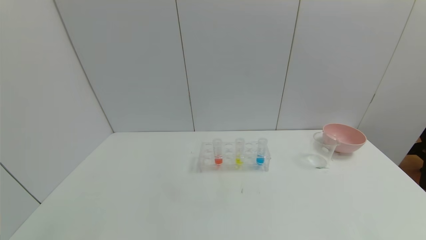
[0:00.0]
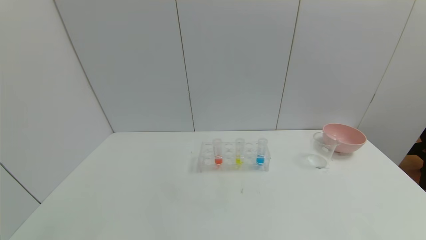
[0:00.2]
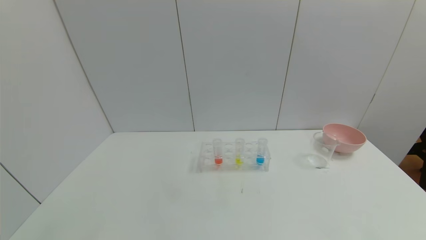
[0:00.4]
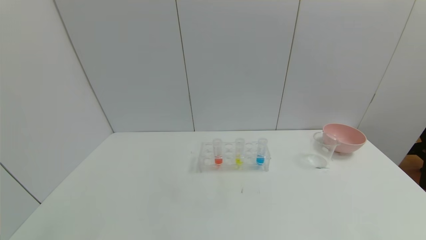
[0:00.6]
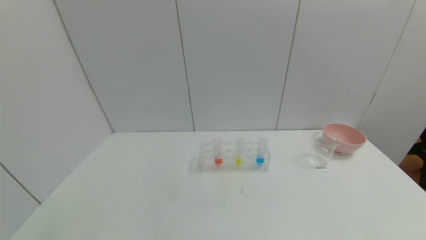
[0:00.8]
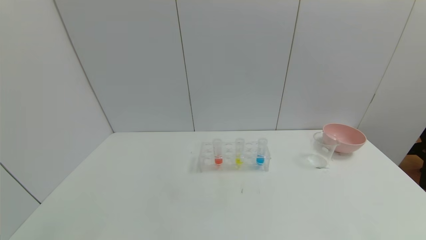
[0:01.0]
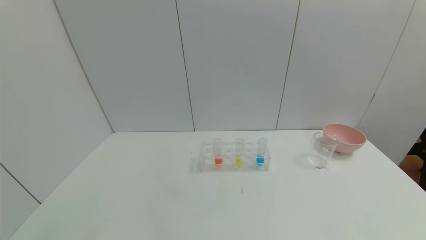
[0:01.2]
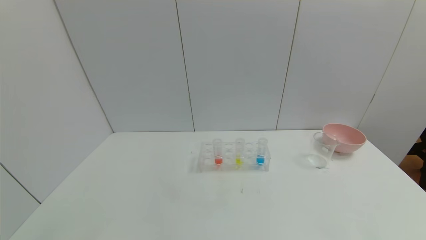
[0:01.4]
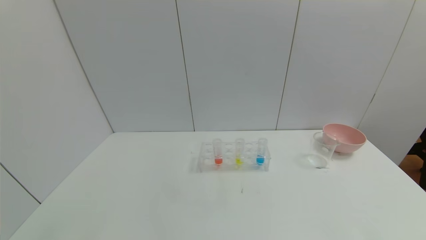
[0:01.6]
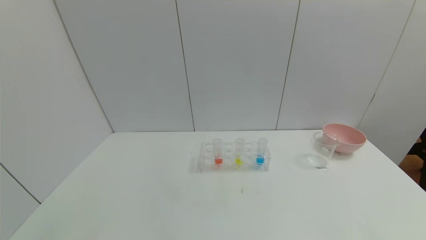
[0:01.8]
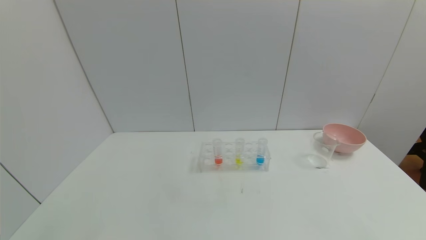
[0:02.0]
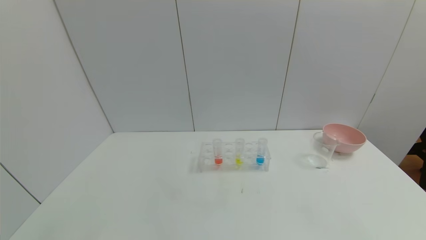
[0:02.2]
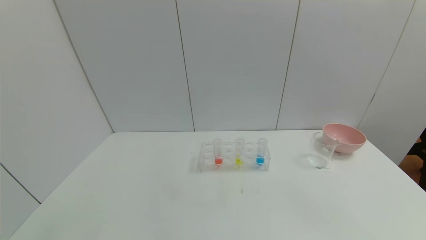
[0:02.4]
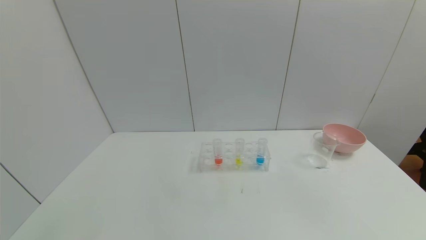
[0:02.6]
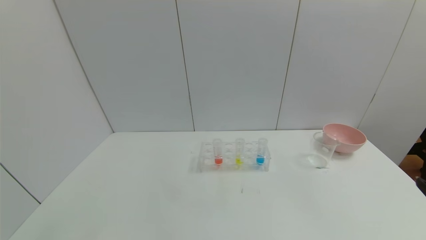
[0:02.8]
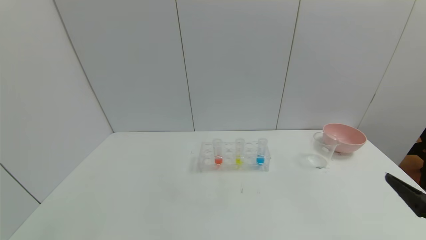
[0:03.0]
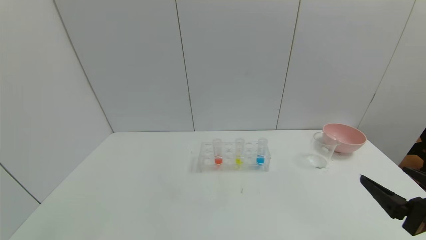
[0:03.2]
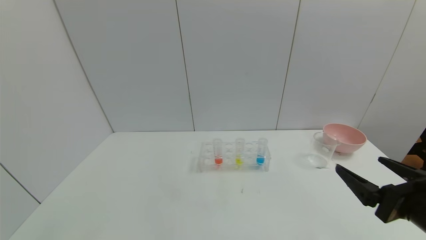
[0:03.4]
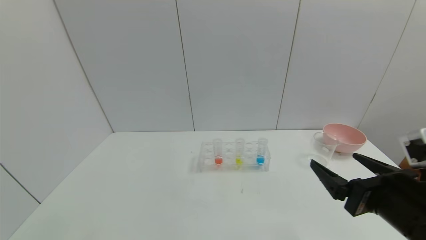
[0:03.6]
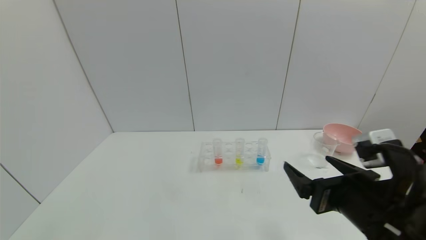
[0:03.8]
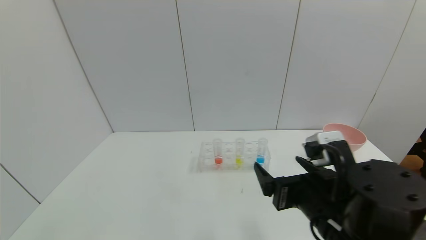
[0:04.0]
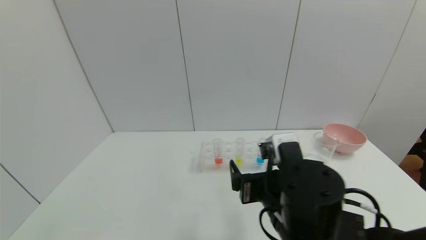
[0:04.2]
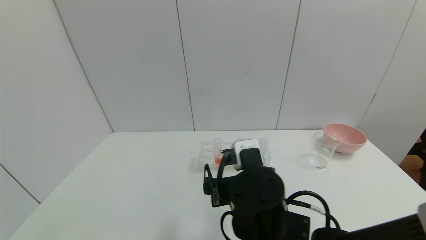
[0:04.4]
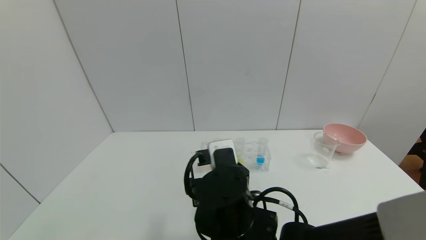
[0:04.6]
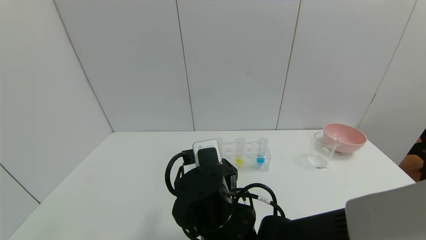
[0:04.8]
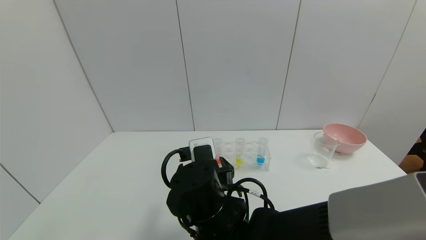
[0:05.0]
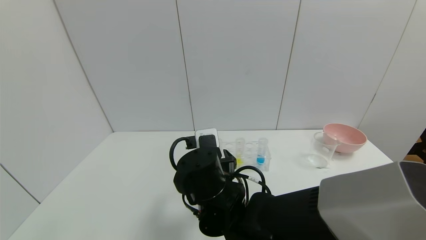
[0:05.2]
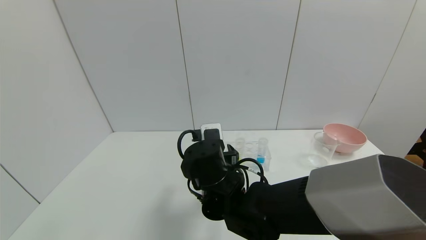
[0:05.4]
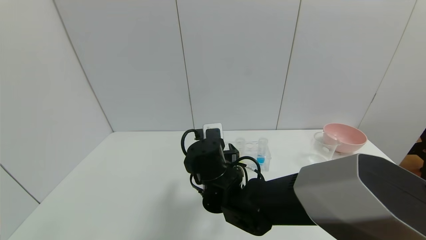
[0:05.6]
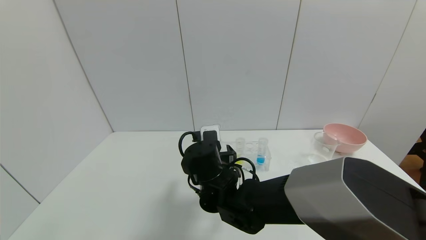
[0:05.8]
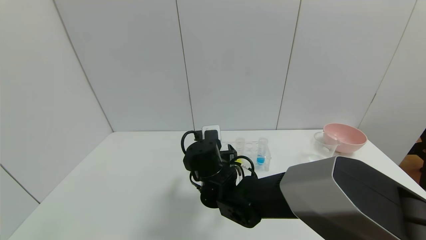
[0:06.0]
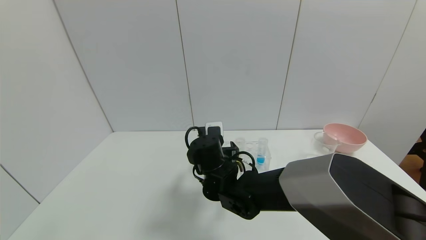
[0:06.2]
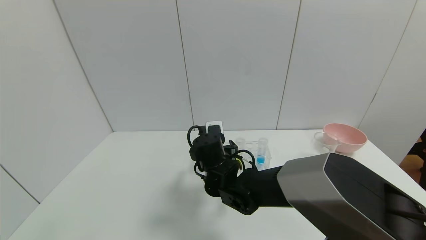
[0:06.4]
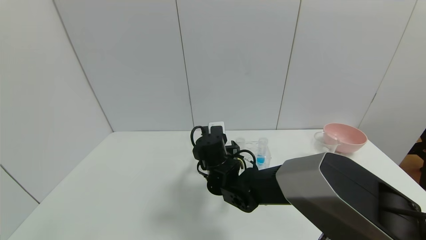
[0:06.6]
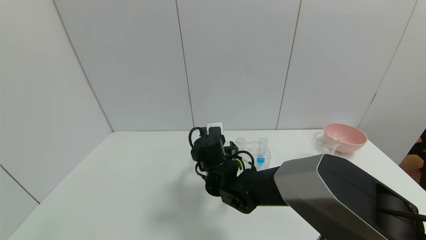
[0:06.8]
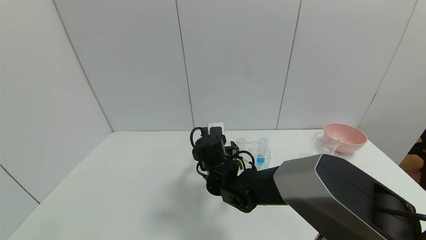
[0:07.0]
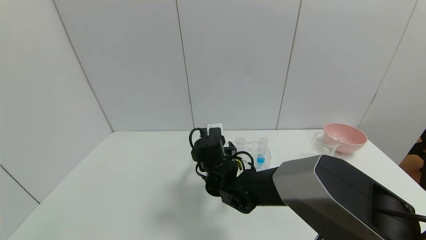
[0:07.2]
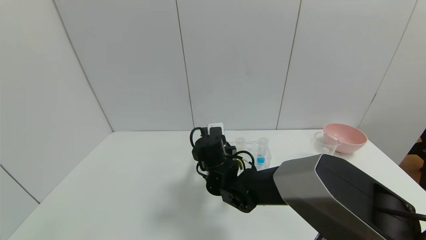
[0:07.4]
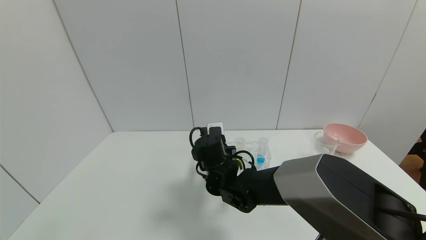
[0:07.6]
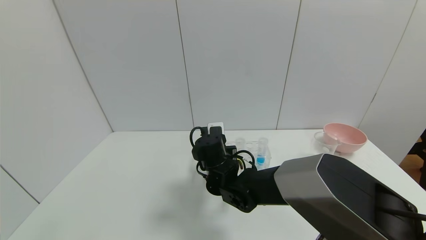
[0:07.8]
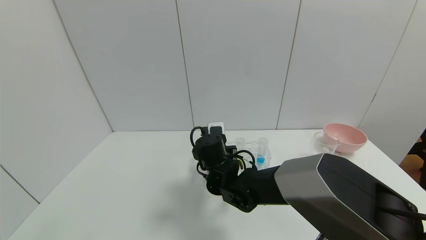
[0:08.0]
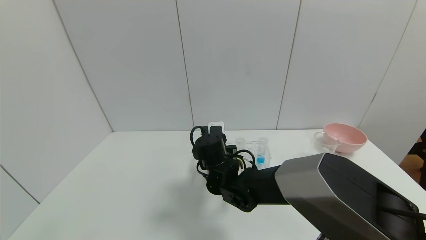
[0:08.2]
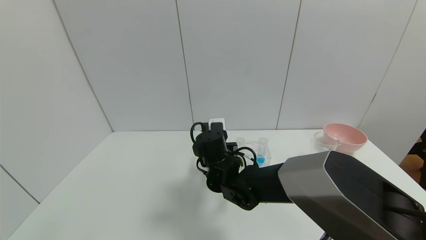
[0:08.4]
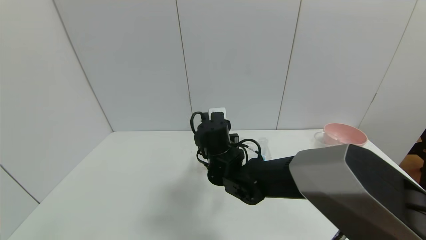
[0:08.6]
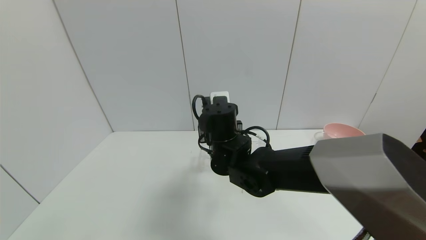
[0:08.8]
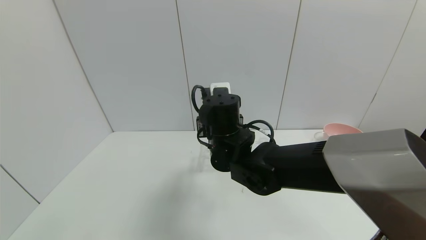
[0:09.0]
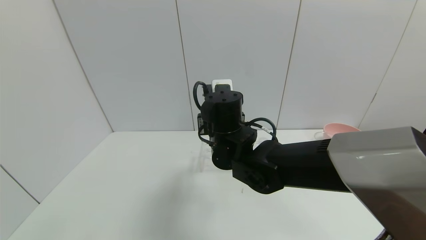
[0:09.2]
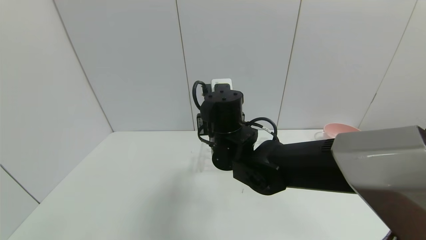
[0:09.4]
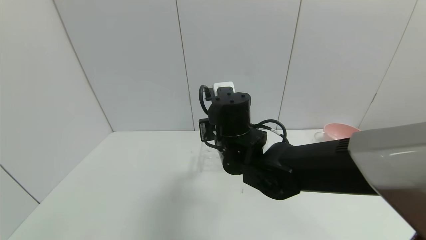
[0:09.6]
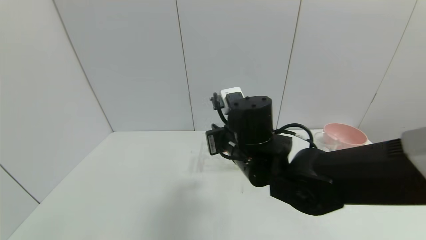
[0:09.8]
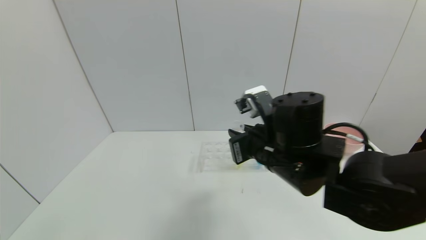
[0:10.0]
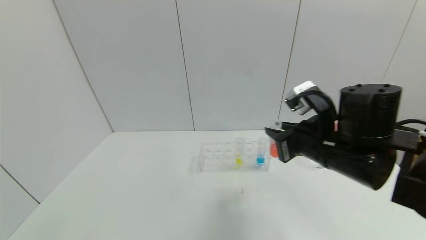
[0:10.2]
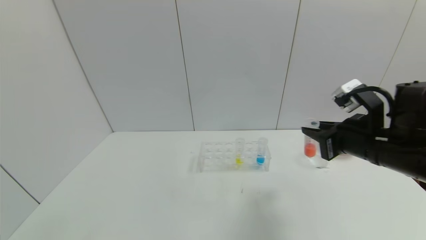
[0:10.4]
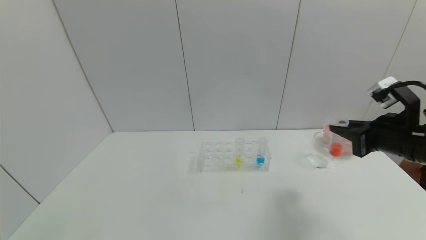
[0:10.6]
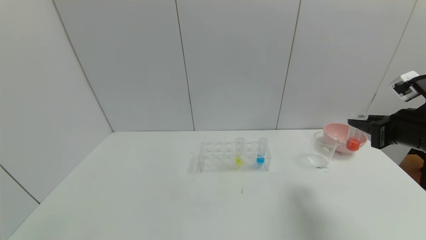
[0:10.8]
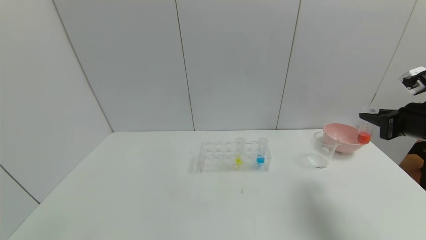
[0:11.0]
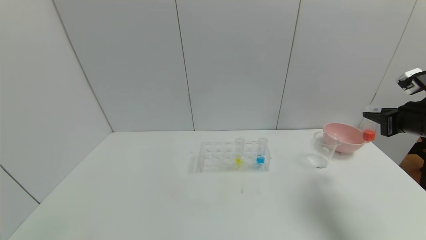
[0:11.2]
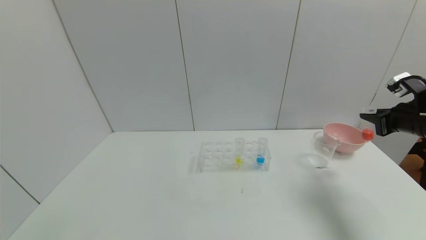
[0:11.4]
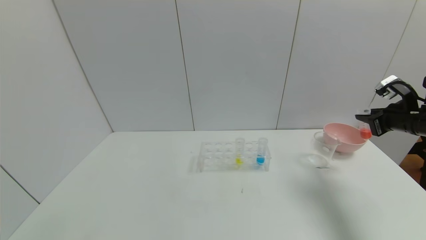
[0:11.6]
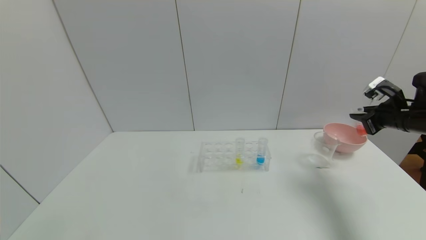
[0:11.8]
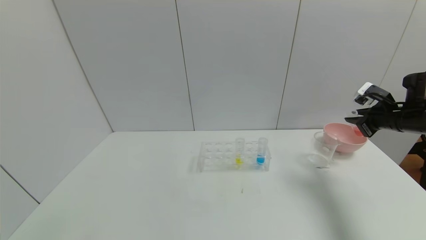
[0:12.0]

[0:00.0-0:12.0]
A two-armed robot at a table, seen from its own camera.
Task of the whole recording: pick up the test tube with red pigment and the test tube with blue pigment by grippers and pour them into the container.
Step, 0:00.0 to 0:07.8: Grasp the red reagent with the right gripper.
0:00.0 to 0:01.6: Both grippers stay about where they are.
0:01.6 to 0:03.0: The right gripper travels forward and upward by some 15 cm.
0:03.0 to 0:04.4: The right gripper travels to the left by about 30 cm.
0:04.4 to 0:06.0: The right gripper is displaced forward and to the left by about 15 cm.
0:06.0 to 0:07.6: The right gripper closes its fingers.
0:07.6 to 0:09.0: The right gripper travels upward by some 10 cm.
0:09.0 to 0:10.4: The right gripper moves to the right, approximately 25 cm.
0:10.4 to 0:12.0: The right gripper goes roughly 20 cm to the right and forward.

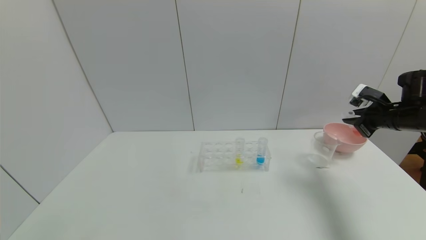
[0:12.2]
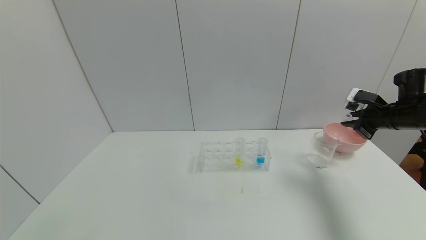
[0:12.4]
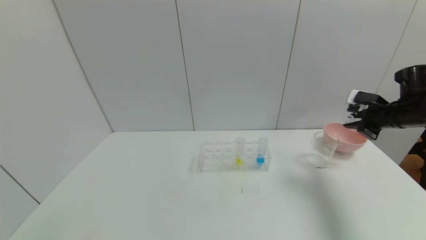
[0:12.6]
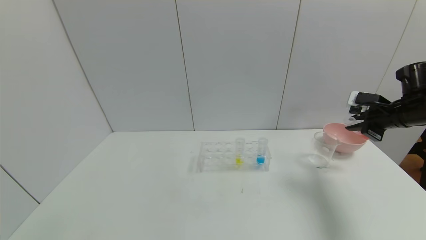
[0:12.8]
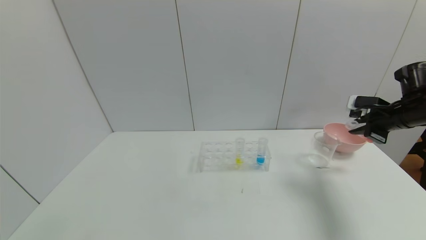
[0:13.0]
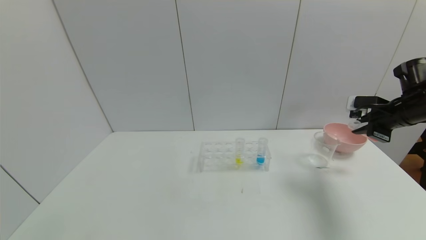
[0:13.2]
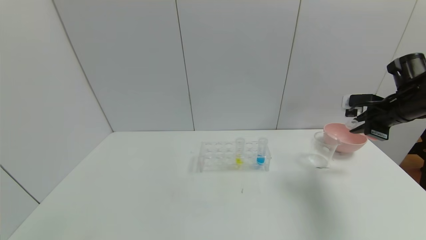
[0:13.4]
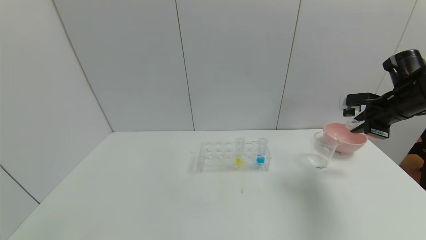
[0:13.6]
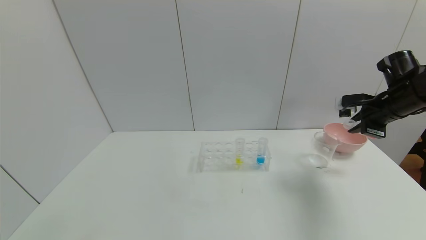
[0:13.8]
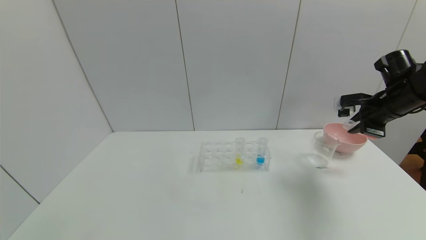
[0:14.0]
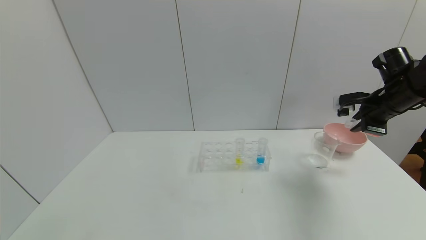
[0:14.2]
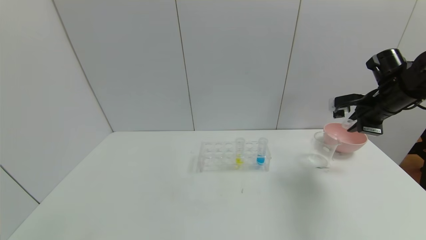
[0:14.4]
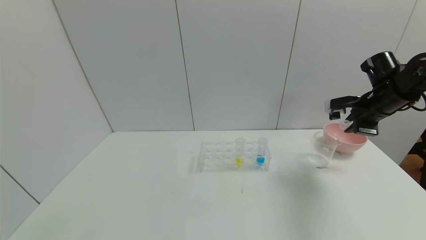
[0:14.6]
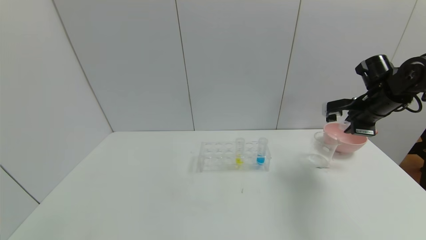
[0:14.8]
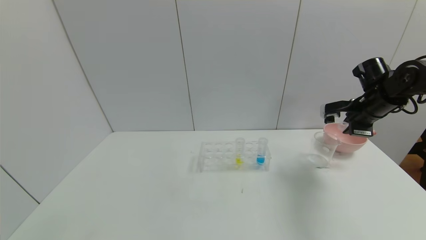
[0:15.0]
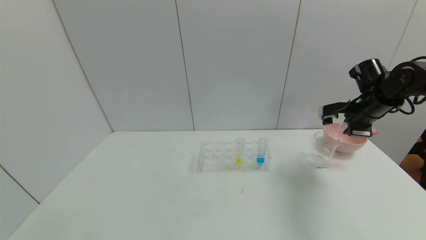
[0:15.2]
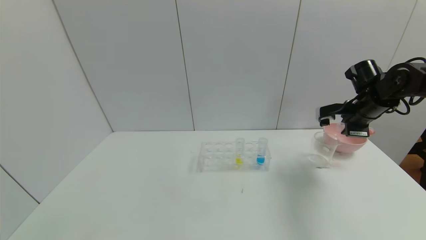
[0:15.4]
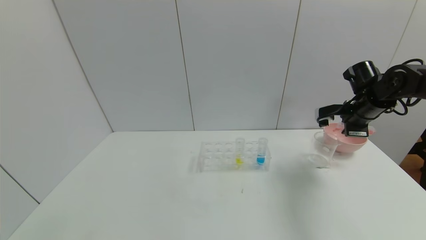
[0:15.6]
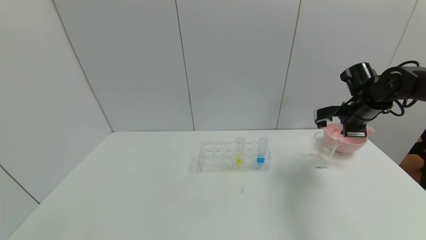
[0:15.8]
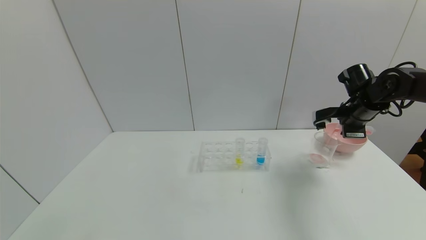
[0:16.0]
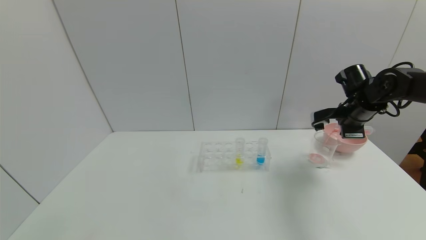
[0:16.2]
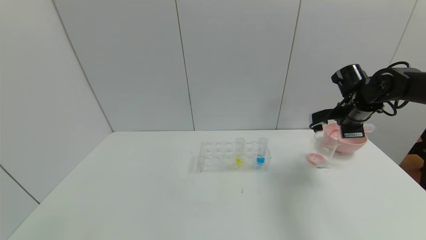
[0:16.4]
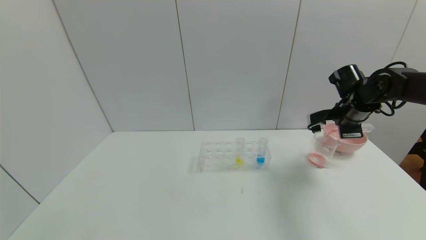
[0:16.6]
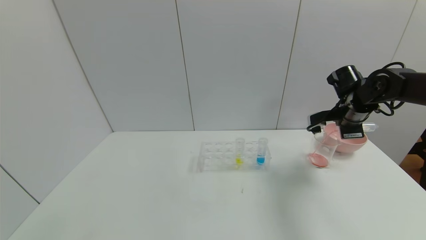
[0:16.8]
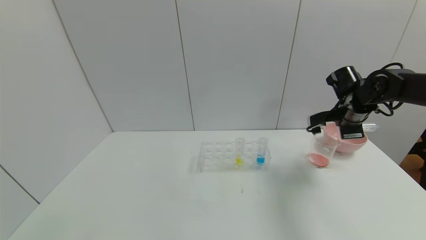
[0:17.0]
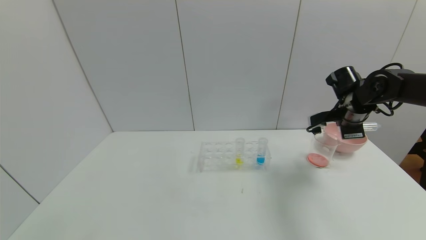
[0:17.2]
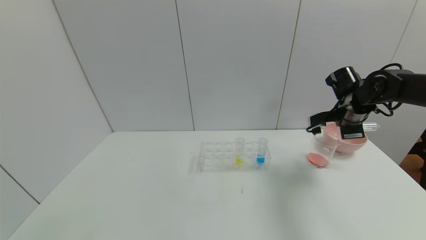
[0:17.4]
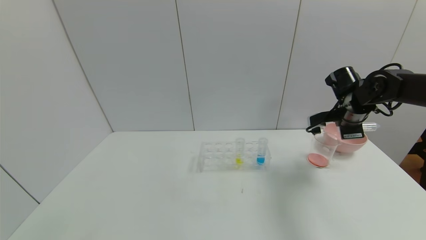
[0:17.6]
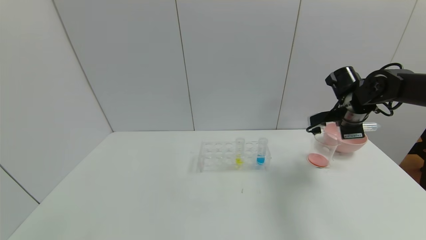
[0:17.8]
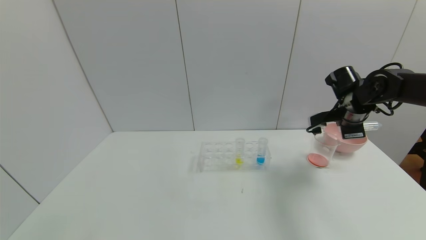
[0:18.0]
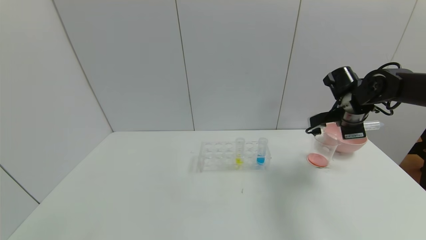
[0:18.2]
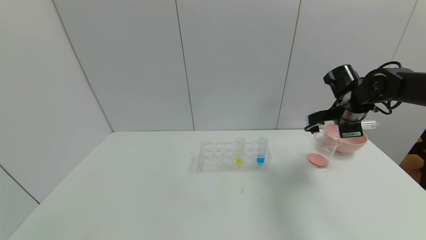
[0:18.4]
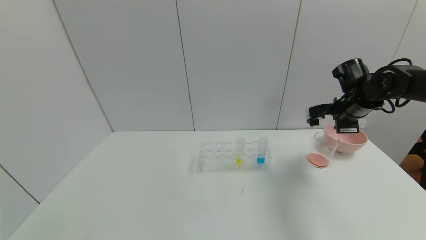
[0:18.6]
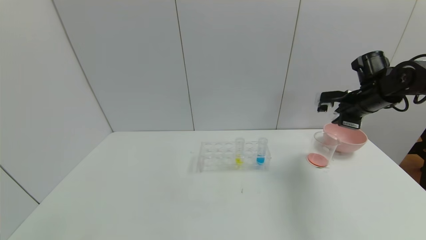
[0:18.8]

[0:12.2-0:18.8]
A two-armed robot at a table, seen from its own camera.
Task of the whole recording: pick up the test tube with red pigment and the test tube with blue pigment by grippers and pour them into the container.
Step, 0:12.2 to 0:17.2: Pour the red reagent into the graduated cylinder with the right gripper.
0:13.8 to 0:15.4: The right gripper moves approximately 5 cm.
0:15.4 to 0:17.2: The grippers make only small movements.
